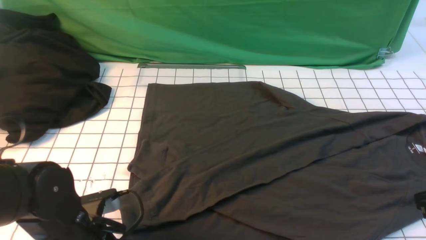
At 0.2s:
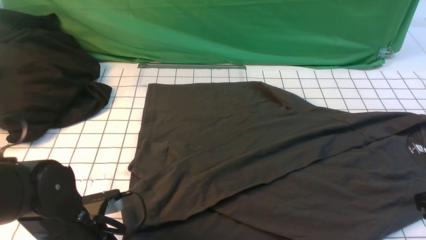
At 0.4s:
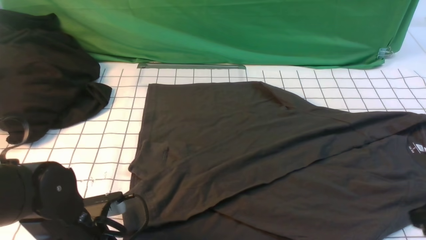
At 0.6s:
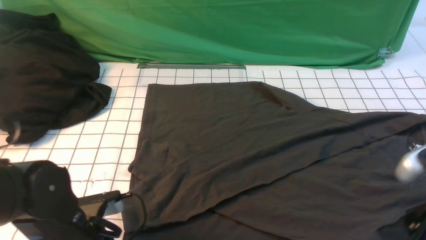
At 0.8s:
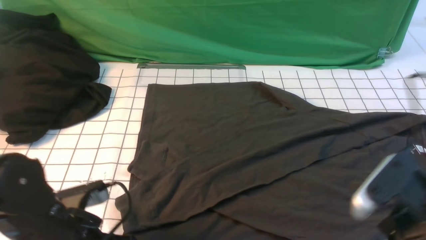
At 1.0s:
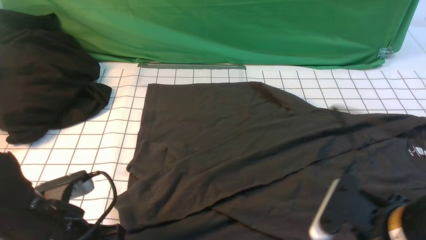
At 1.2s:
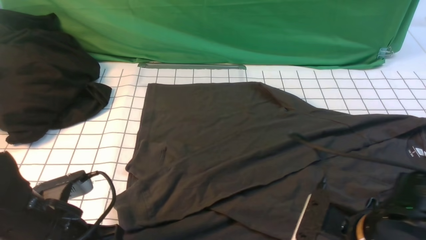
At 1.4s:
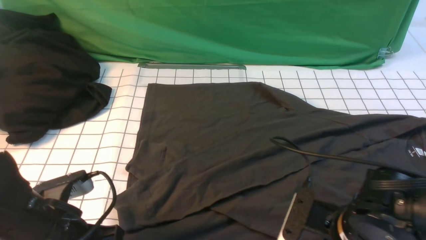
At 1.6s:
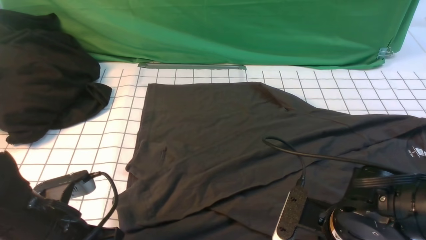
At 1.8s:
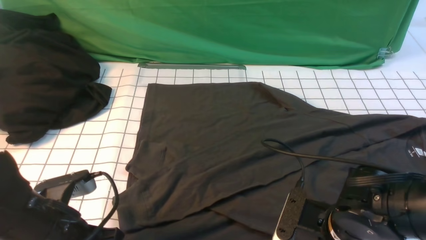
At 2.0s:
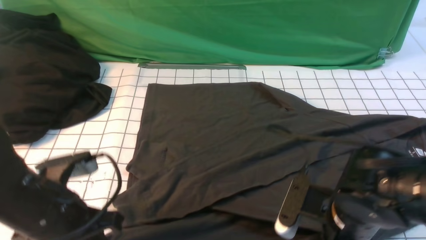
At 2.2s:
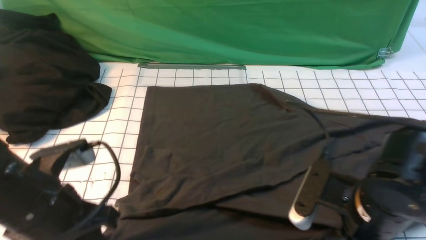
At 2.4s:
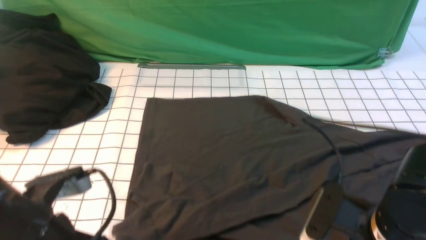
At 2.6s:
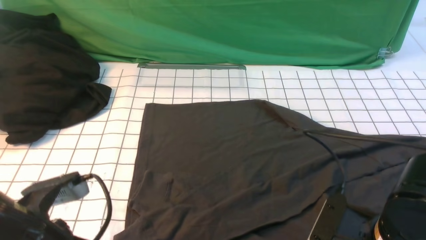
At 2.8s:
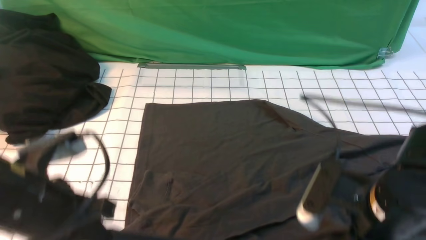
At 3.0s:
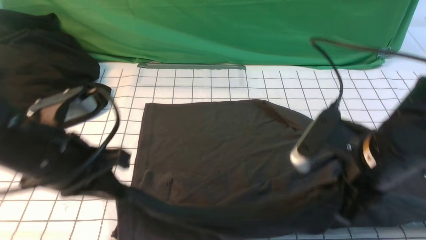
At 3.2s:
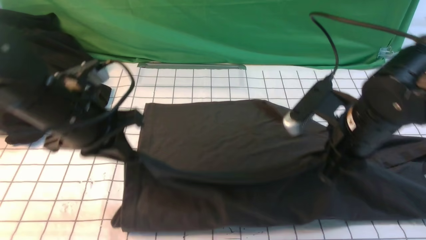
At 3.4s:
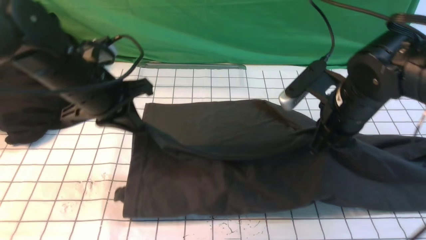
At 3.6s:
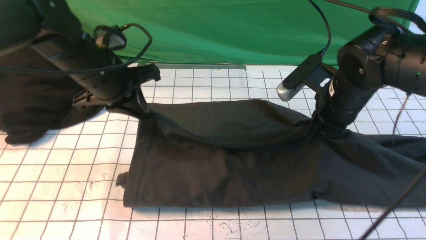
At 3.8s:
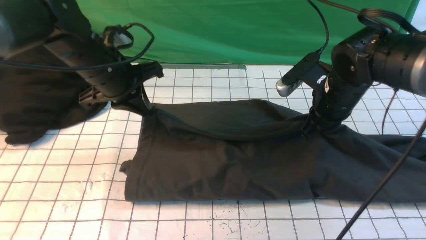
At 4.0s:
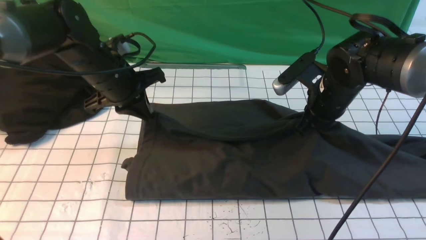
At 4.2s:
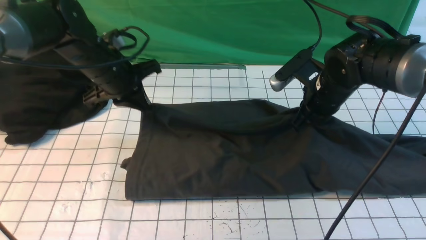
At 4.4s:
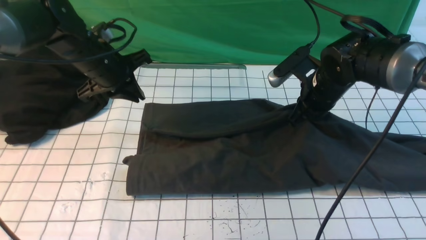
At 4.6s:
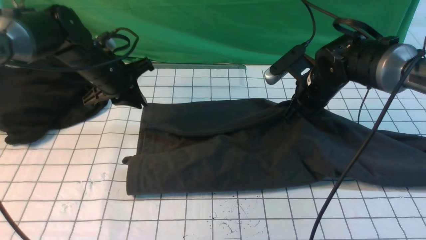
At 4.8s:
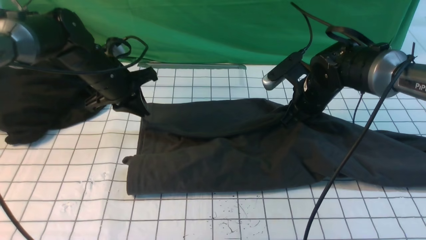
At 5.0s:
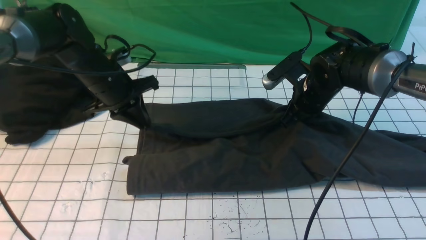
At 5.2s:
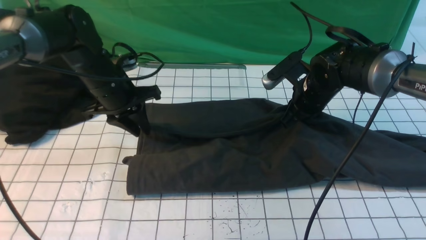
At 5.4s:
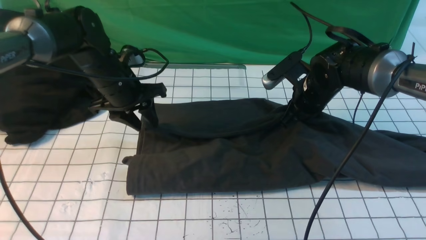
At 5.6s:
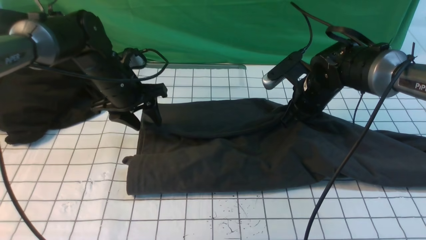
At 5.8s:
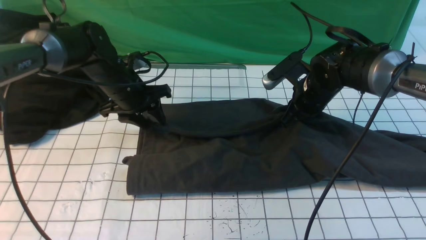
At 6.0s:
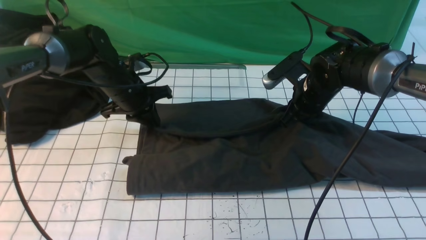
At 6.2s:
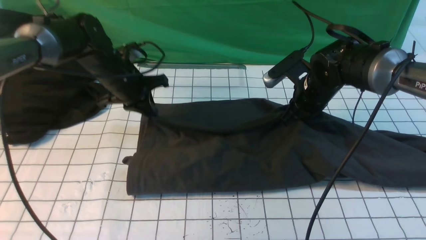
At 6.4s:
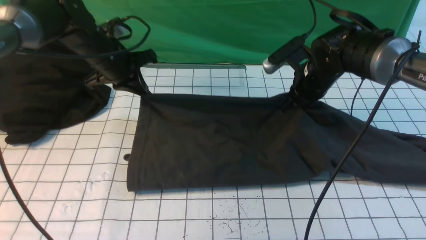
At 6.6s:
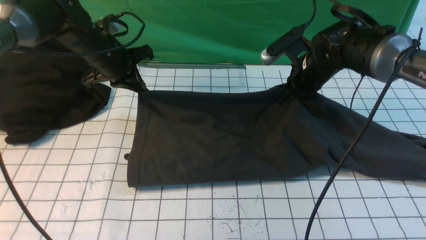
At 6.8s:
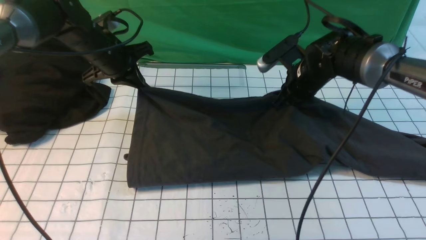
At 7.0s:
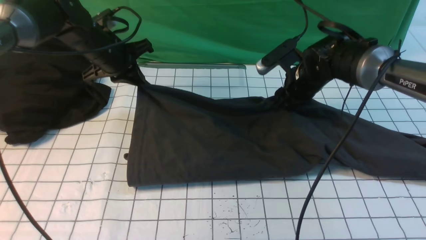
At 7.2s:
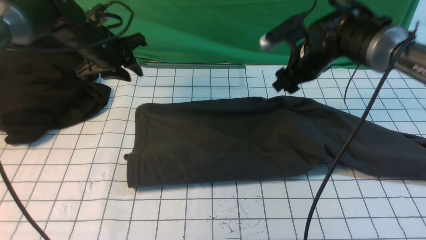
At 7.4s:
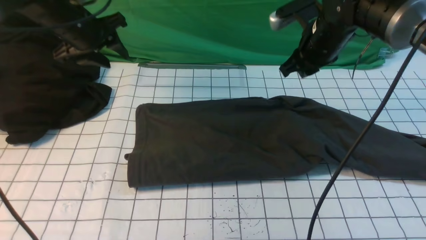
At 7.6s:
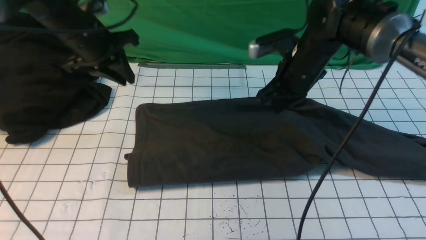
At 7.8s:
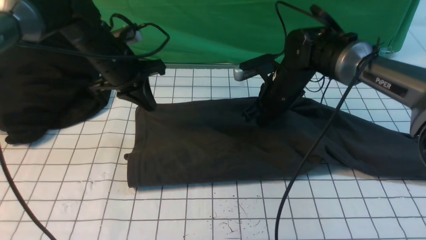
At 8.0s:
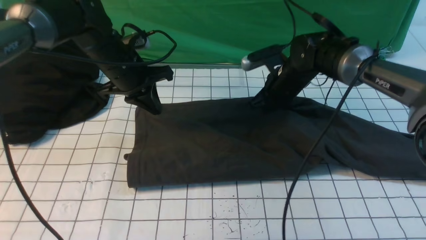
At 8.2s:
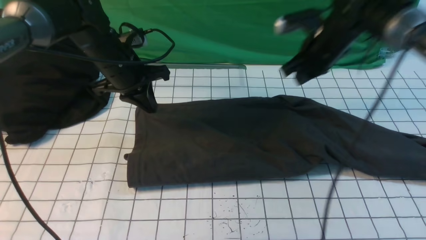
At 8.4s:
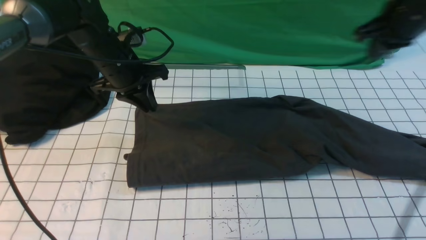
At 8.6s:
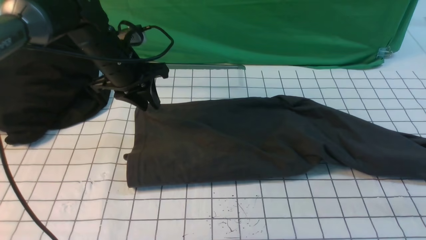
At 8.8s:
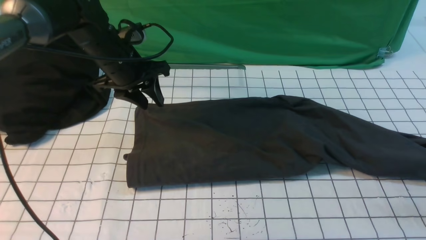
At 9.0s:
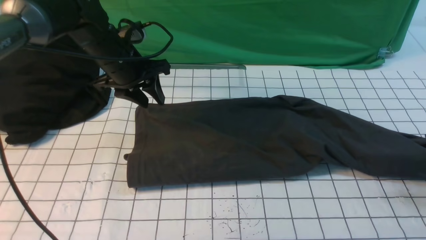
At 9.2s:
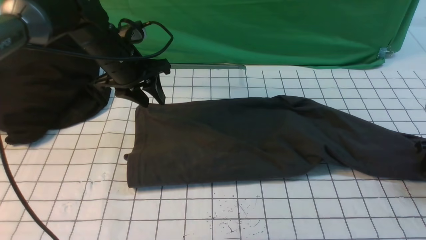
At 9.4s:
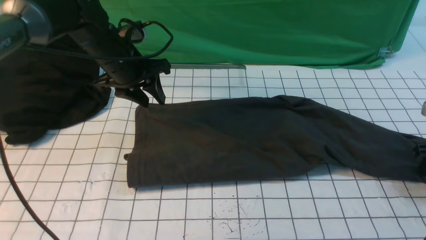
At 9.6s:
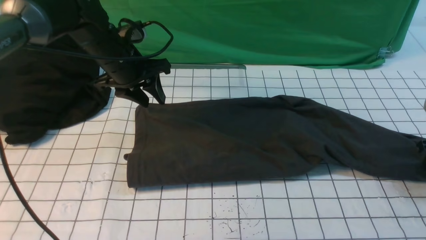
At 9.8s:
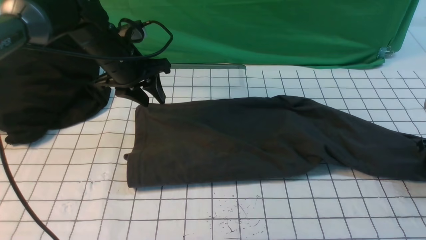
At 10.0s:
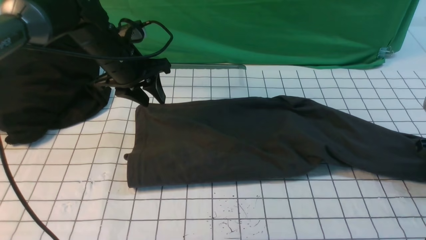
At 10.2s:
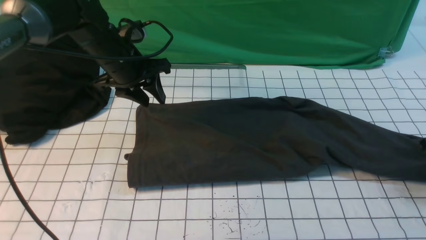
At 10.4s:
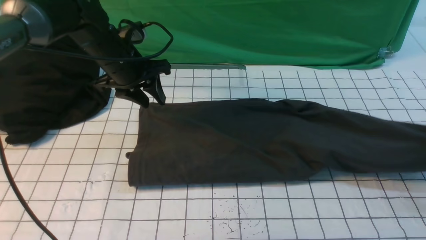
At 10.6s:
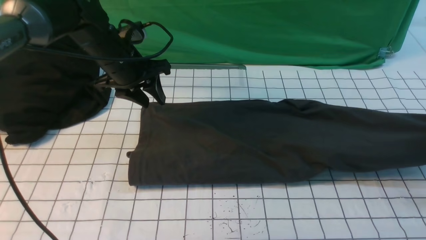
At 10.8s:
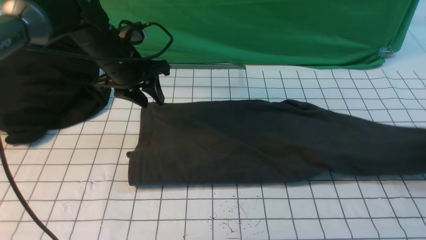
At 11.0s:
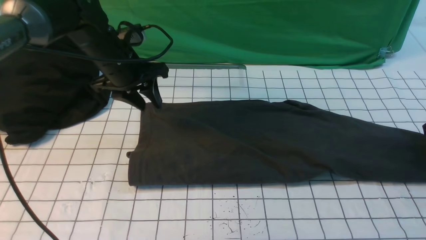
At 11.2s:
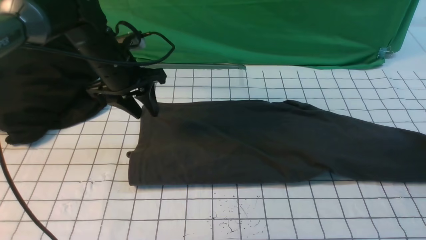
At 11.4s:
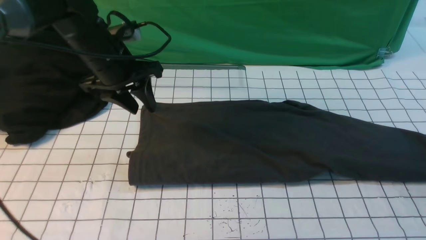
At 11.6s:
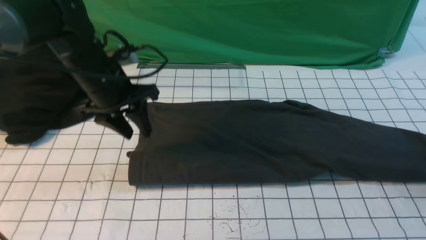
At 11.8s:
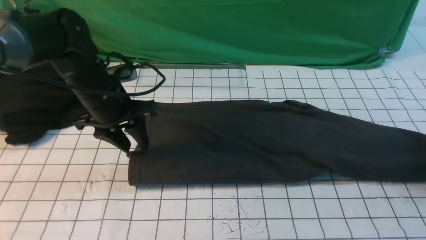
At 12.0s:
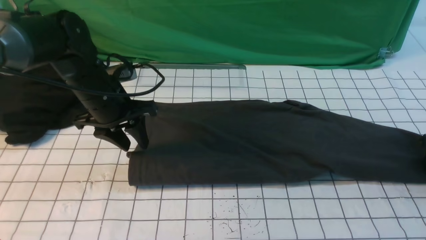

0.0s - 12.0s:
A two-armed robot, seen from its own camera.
Step, 0.0s - 1.6s: use both arms simultaneously to clamp the lower edge of the clothing fabric.
Step, 2.0s - 7.2s: use both arms to drag the lower edge of the fabric forward and fold it over the upper edge.
0.0s - 1.6s: The left gripper ends up about 5 cm from where it was, and closes up, while the right gripper goes approximately 20 cm to the left and downward.
1.6s - 3.0s: The right gripper moves upward, about 10 cm, and closes its fingers. Meanwhile the left gripper shifts some 10 cm upward and forward.
3.0s - 4.4s: Both grippers move forward, approximately 20 cm.
4.4s - 6.0s: The left gripper changes place by roughly 5 cm, and opens, then closes again.
6.0s - 7.6s: The right gripper moves roughly 5 cm, and opens, then closes again, while the left gripper is displaced upward by roughly 10 cm.
7.6s - 9.0s: The left gripper opens; the right gripper moves to the right, some 30 cm, and opens its fingers.
9.0s - 10.4s: The right gripper closes its fingers.
10.4s - 12.0s: The right gripper heads downward, covering roughly 5 cm, and opens, while the left gripper moves backward, roughly 5 cm.

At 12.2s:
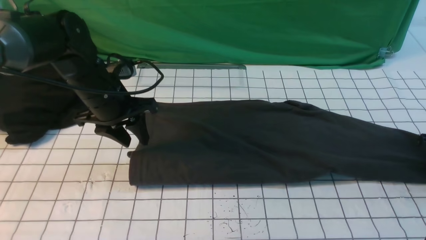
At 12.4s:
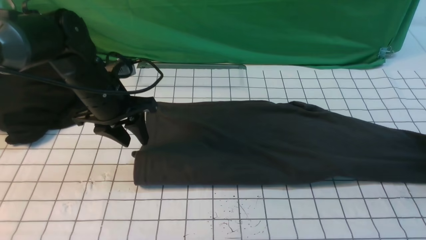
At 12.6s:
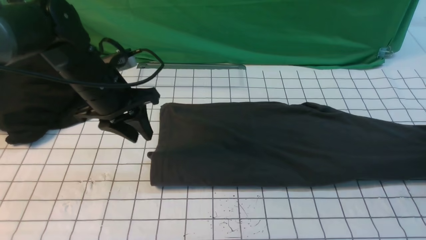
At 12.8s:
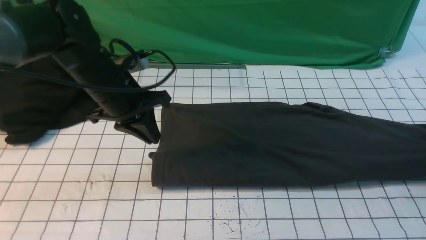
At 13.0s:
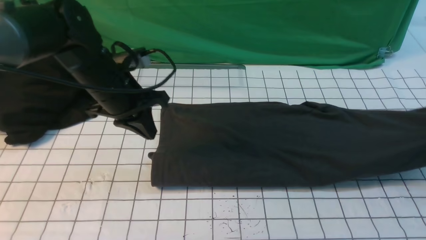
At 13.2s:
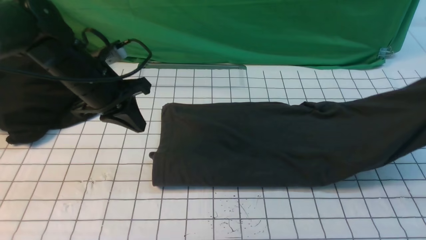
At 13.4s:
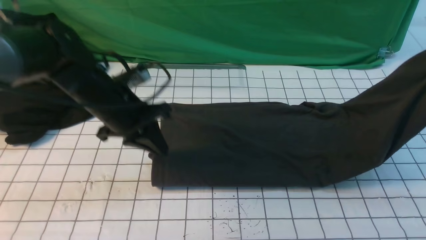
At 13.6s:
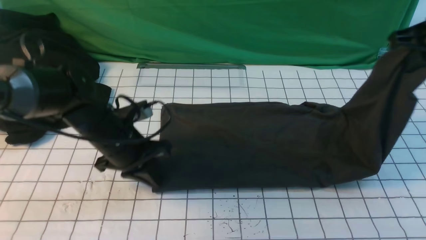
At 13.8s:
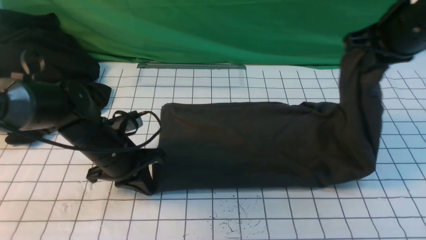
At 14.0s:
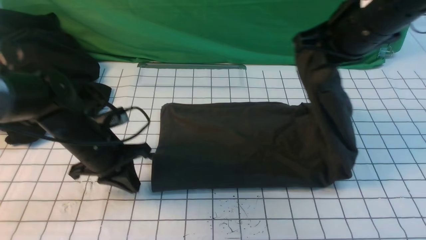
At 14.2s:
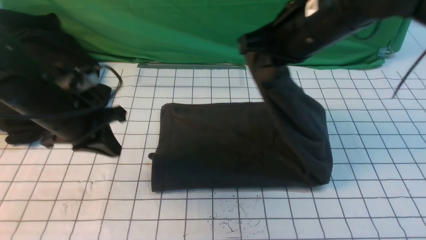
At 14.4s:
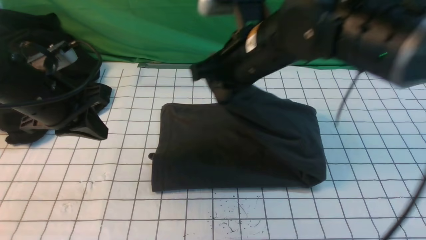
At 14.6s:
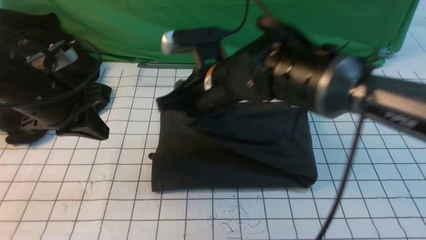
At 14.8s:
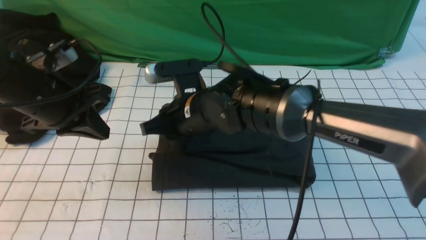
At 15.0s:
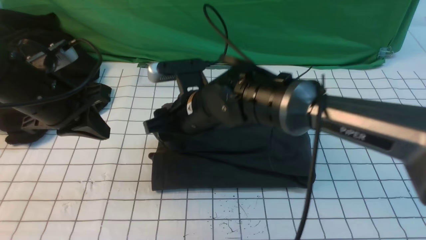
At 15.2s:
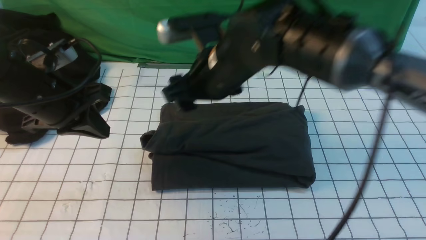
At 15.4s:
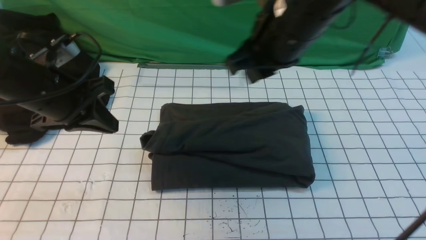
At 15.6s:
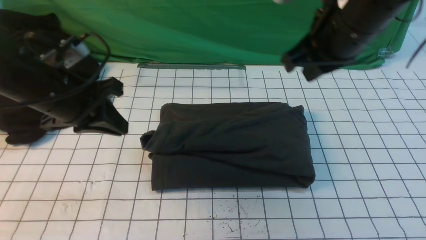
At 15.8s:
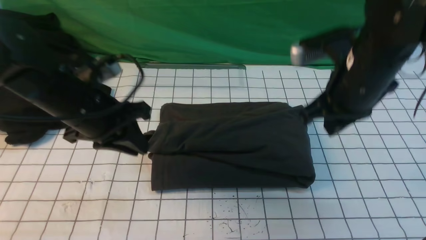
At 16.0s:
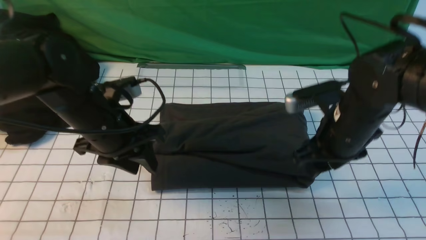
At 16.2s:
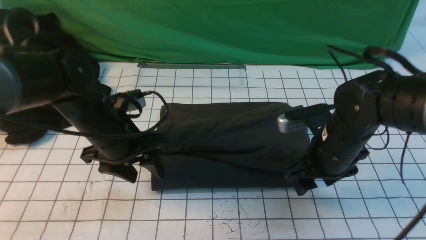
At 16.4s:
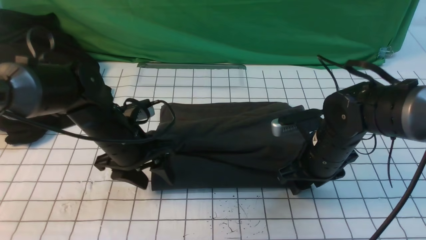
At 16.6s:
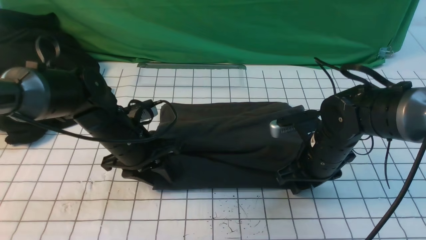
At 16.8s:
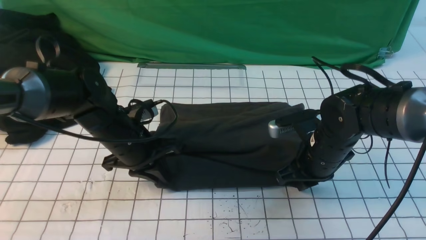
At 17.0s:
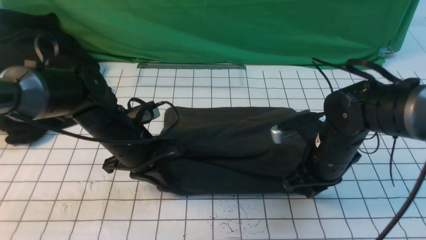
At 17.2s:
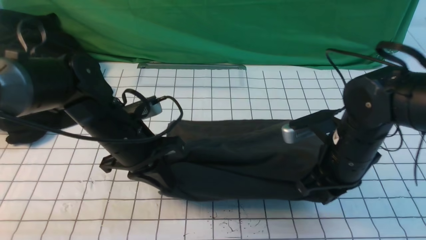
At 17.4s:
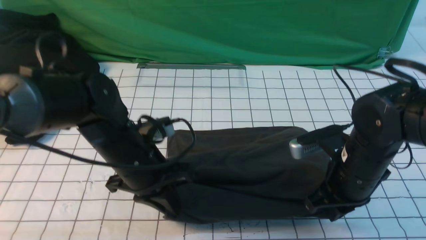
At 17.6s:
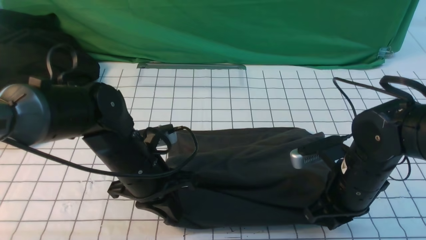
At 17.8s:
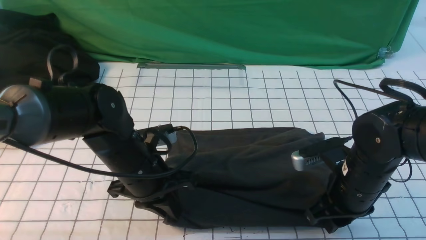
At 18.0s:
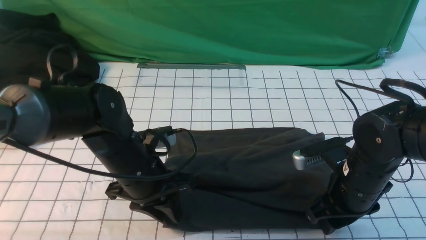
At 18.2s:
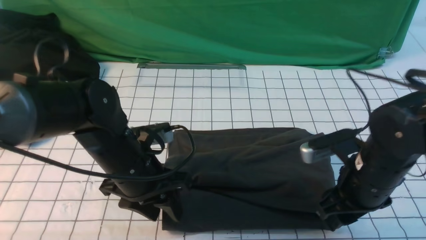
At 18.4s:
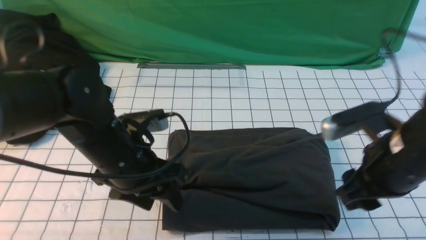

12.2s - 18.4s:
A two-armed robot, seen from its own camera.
Step, 12.4s - 15.0s: use the right arm to drag the right edge of the fabric to the left and folds it over the left edge.
12.2s - 13.8s: The left gripper goes roughly 10 cm downward and backward, and closes up. The right gripper heads to the left and upward, covering about 30 cm, and closes its fingers.
13.8s - 15.4s: The right gripper moves to the left, approximately 15 cm, and opens, then closes once more, while the left gripper is displaced upward by approximately 10 cm.
15.4s - 16.8s: The left gripper shifts roughly 15 cm downward and to the right, and opens, then closes once more. The right gripper travels downward by some 20 cm, and opens, then closes once more.
16.8s - 18.4s: The right gripper shifts about 15 cm upward and backward. Meanwhile the left gripper travels backward and upward by approximately 10 cm, and opens.
